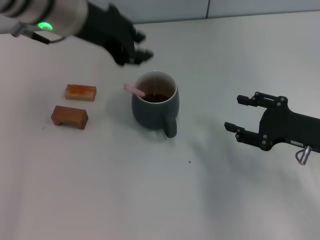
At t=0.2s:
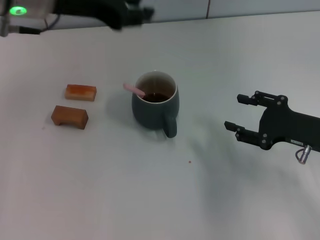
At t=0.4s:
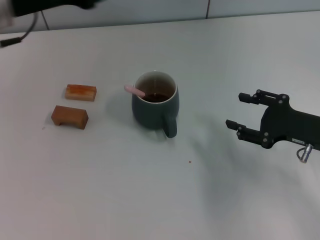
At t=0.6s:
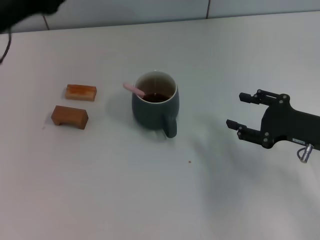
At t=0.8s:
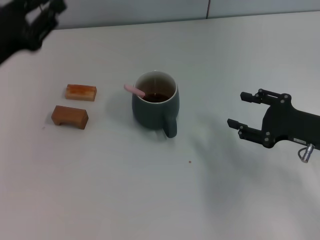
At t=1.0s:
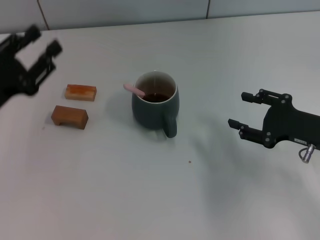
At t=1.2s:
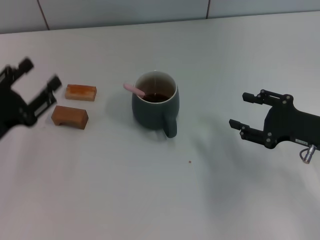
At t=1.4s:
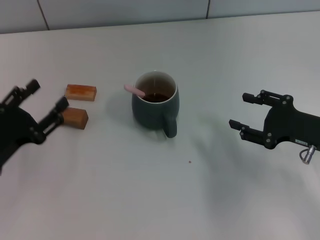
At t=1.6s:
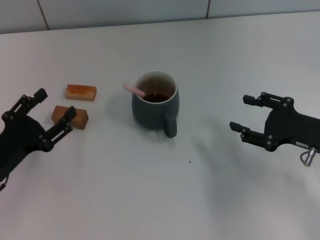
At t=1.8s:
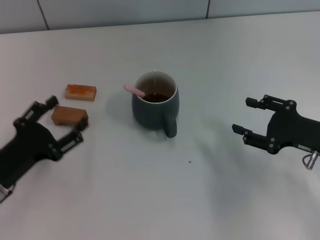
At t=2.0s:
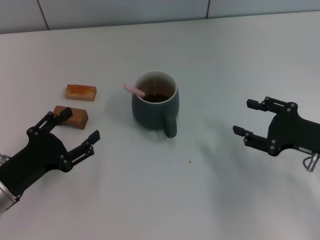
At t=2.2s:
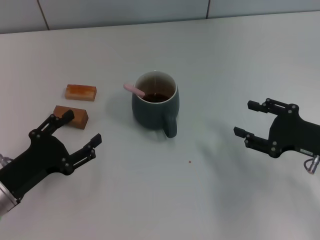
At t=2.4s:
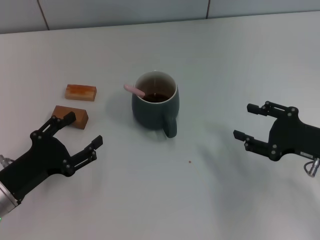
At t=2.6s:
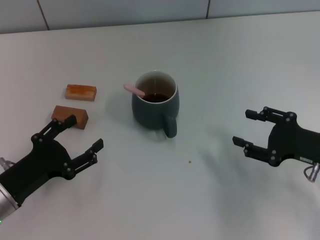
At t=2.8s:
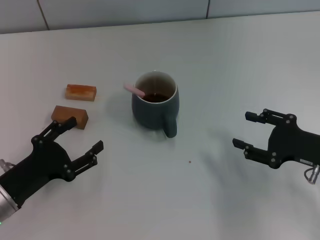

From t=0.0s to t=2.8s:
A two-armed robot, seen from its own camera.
Task of the whole recording: Move the grey cup to the center, lift the pink spoon, stir it three times in the cup, and put the spoon into the cup.
From t=0.0s to t=1.4s: The left gripper shifts about 30 cm downward, to the left and backward, and opens its fingers.
From t=1.4s to t=2.8s: There are only small adjustments of the grippers.

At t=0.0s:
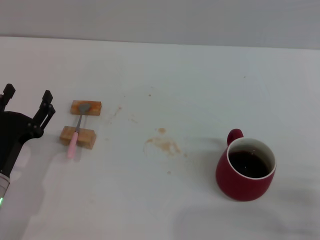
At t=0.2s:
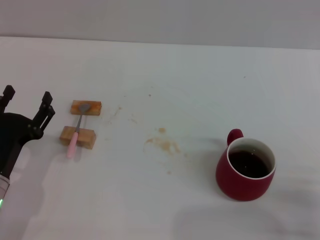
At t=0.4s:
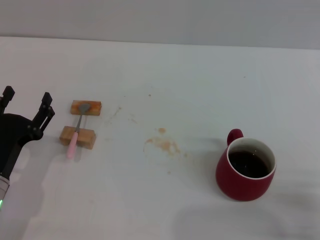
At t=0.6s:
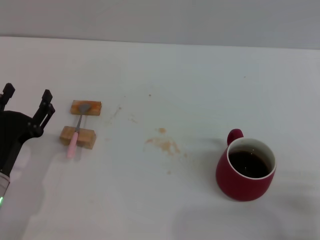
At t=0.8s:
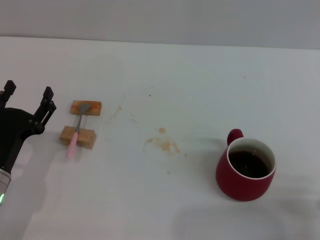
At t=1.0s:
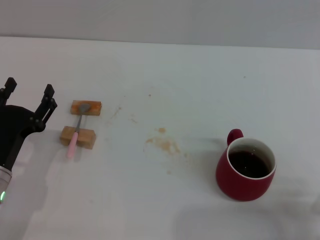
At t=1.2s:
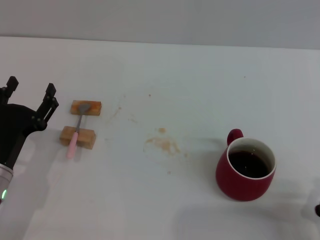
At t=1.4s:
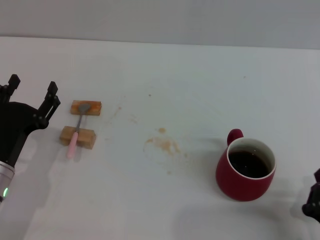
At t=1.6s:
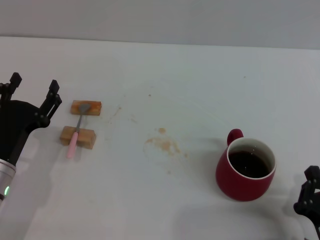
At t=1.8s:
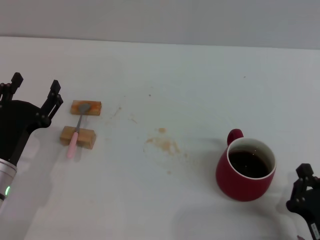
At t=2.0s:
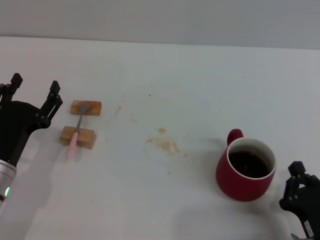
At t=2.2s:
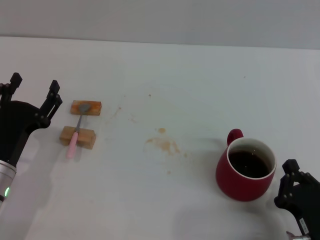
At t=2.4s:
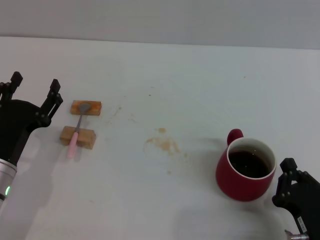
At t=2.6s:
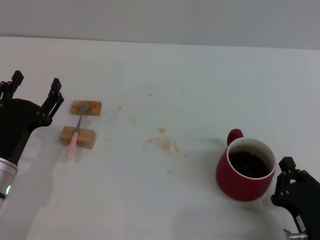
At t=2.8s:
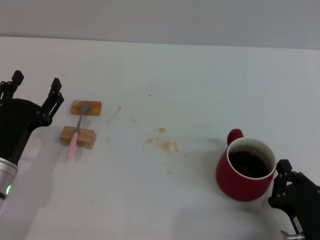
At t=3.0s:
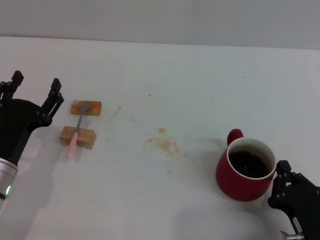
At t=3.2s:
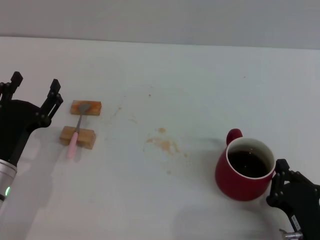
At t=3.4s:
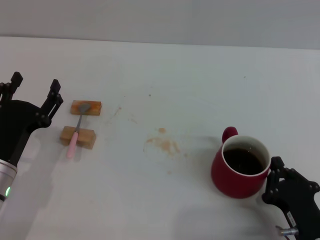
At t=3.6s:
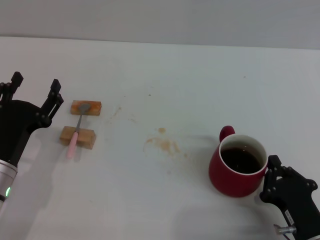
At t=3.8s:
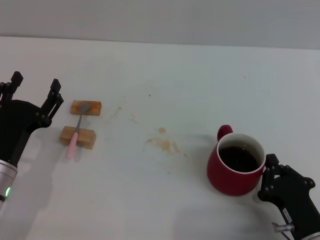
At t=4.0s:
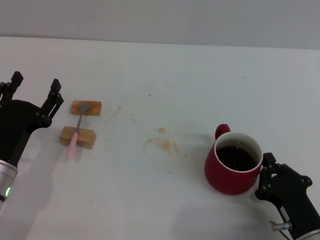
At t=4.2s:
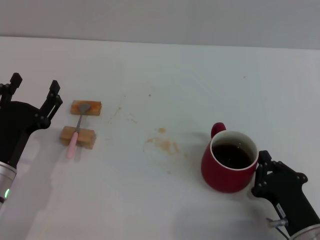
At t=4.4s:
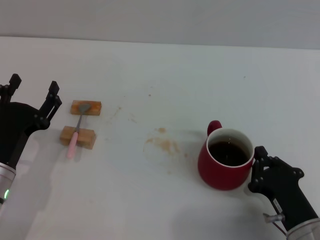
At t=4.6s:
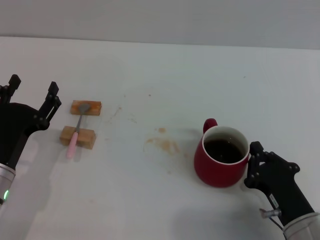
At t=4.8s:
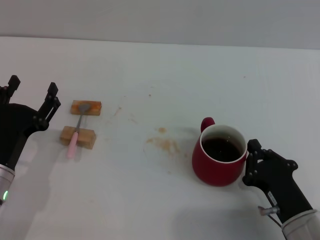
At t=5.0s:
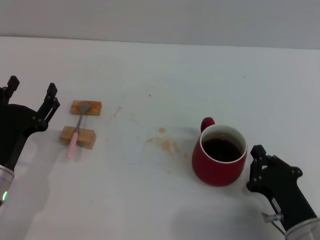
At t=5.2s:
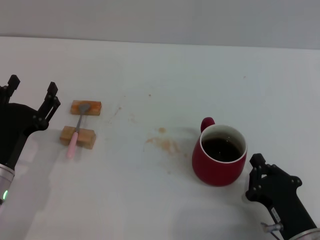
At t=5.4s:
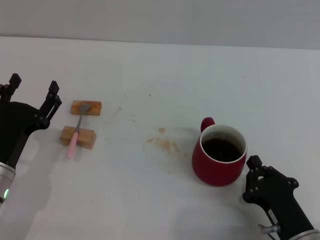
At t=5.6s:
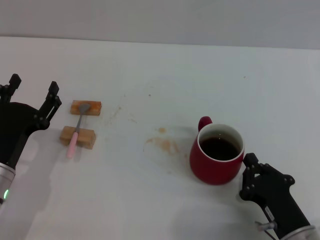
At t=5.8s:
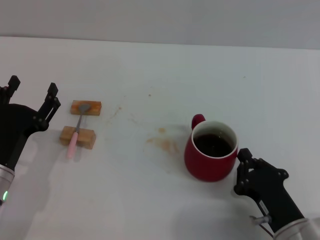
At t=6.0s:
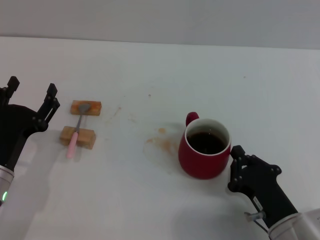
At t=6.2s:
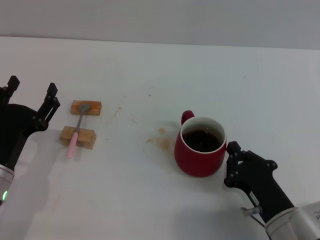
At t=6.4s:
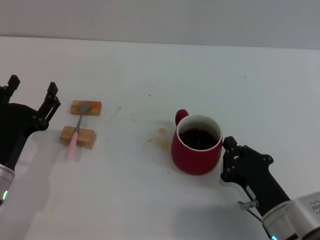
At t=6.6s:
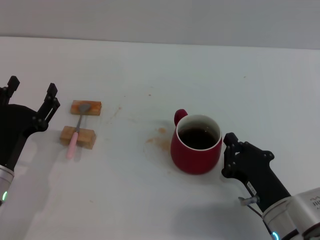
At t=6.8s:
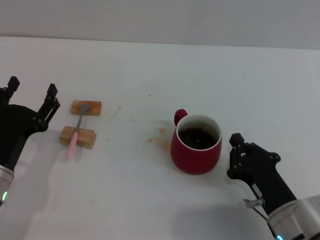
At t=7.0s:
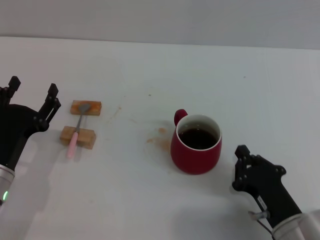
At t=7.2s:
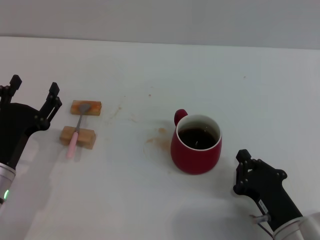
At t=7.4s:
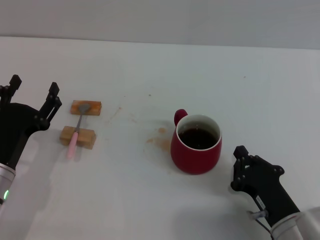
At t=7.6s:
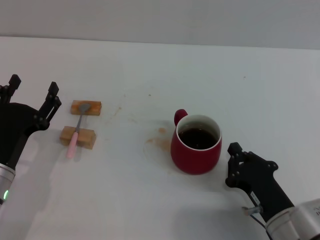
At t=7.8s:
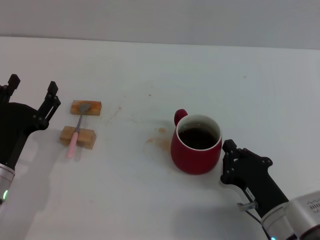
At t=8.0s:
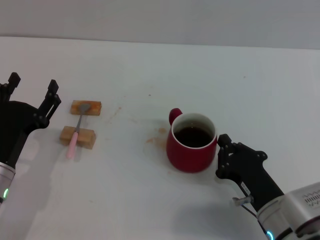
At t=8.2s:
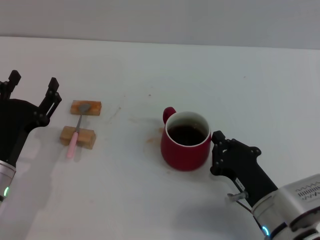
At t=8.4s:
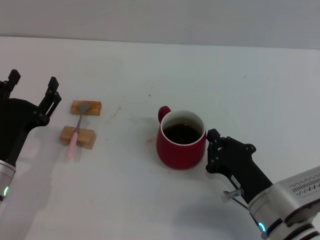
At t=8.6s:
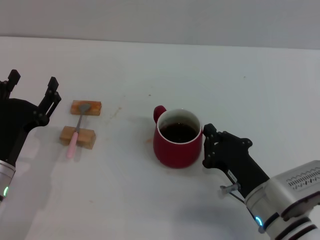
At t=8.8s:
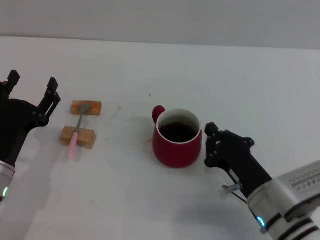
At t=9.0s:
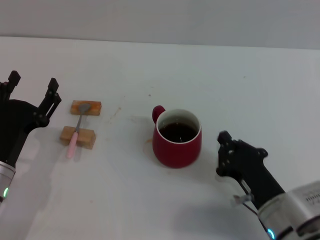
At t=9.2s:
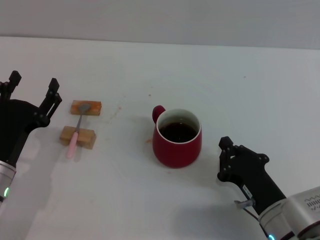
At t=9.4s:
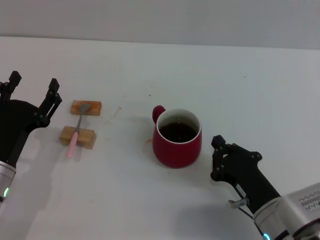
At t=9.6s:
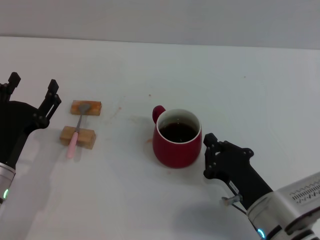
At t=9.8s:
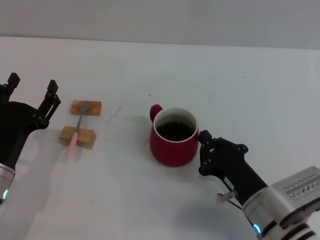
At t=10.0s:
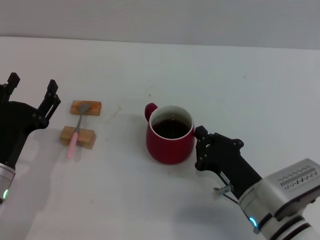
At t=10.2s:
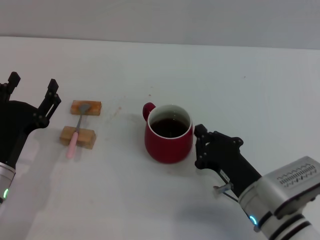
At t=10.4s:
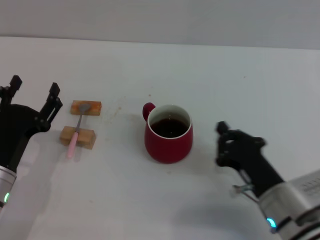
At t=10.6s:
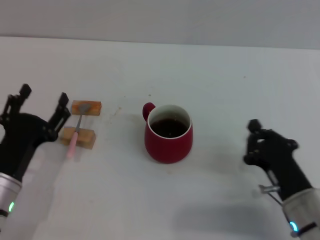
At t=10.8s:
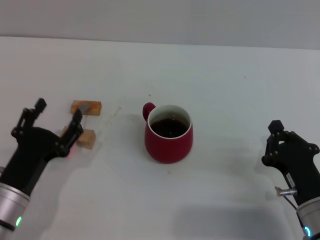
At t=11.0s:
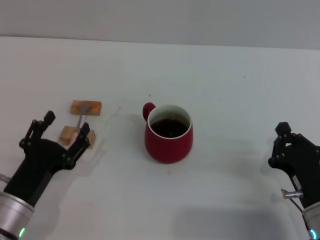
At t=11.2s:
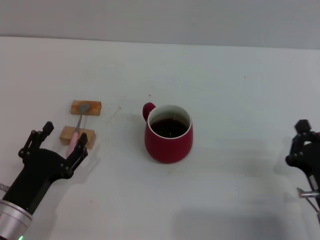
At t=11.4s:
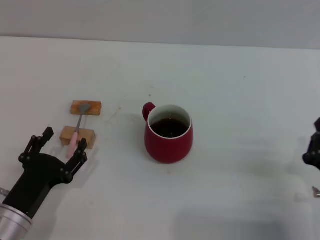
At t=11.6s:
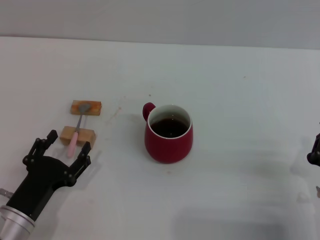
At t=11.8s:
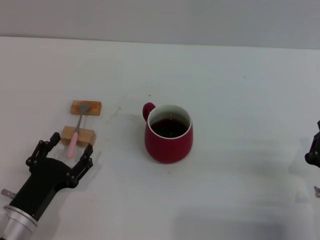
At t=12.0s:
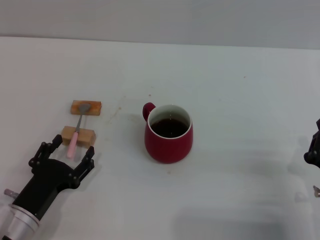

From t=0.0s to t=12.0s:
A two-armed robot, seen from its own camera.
Task of the whole recording: Move the red cup to the center, lift the pink spoon, stir it three times in the cup, and put the spoon into the cup.
Step, from t=0.0s to t=6.8s: Move the cup with coffee to the center of view with the right gripper.
From t=0.0s to t=1.6s: The right gripper ends up some 5 cm from where it was.
From t=1.6s to t=4.4s: The grippers stay close to where they were, moving slightly.
From t=4.4s to t=7.6s: The grippers move only a little.
From t=7.6s to t=10.4s: The grippers stay close to where they were, moving slightly.
From t=10.4s to t=12.0s: The right gripper shifts some 10 cm to the right. The left gripper moves roughly 5 cm.

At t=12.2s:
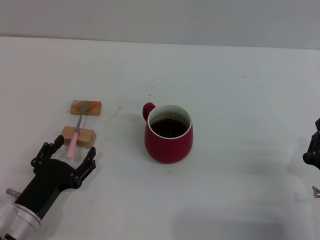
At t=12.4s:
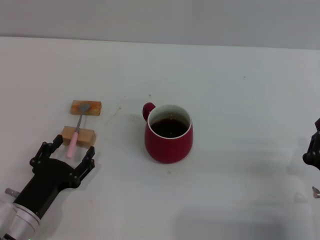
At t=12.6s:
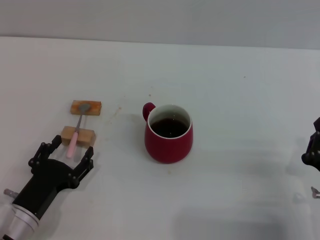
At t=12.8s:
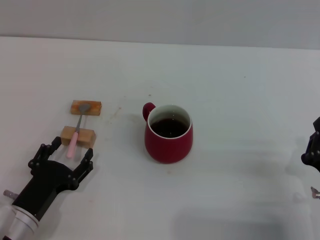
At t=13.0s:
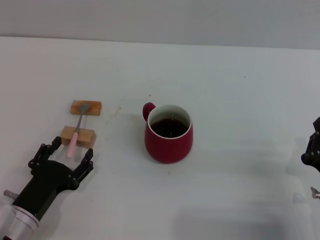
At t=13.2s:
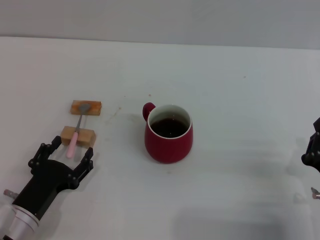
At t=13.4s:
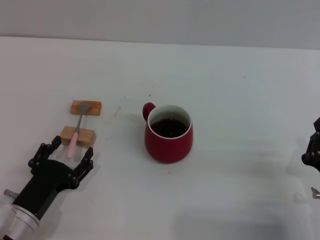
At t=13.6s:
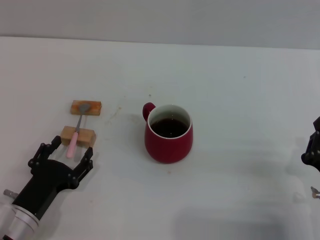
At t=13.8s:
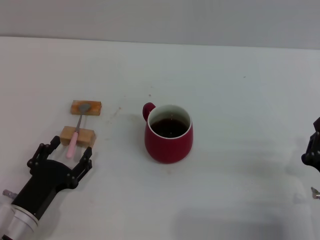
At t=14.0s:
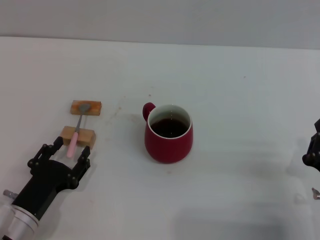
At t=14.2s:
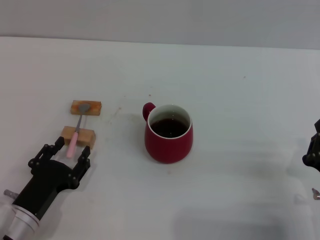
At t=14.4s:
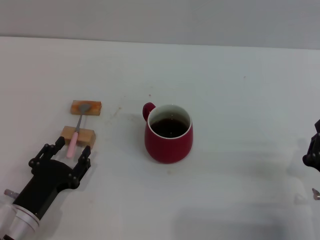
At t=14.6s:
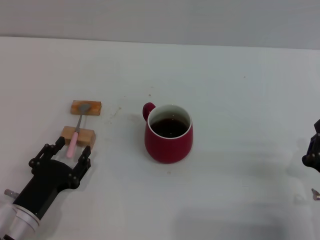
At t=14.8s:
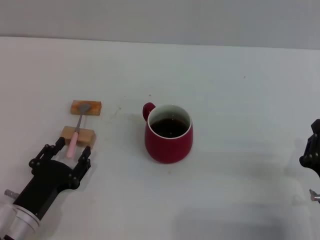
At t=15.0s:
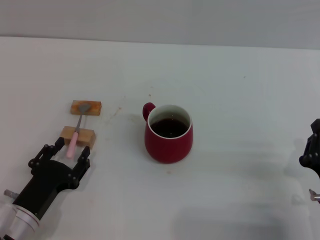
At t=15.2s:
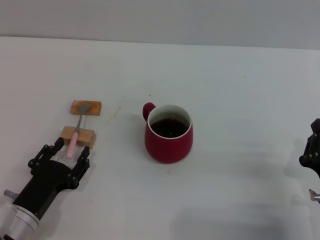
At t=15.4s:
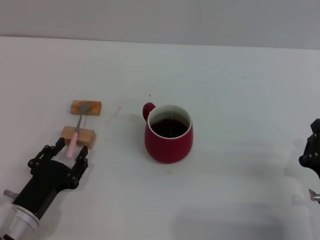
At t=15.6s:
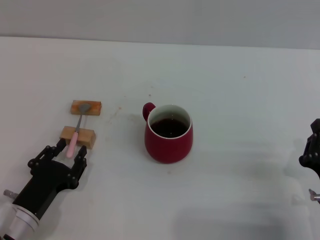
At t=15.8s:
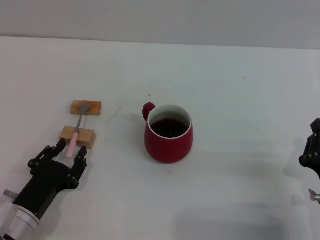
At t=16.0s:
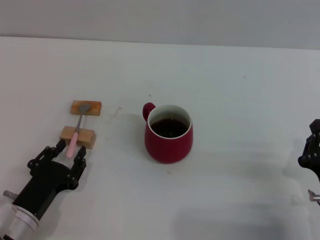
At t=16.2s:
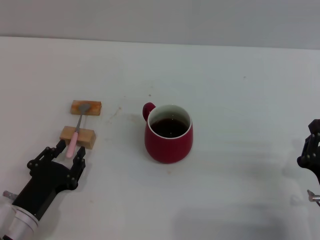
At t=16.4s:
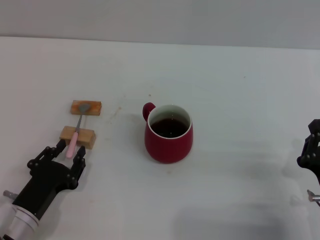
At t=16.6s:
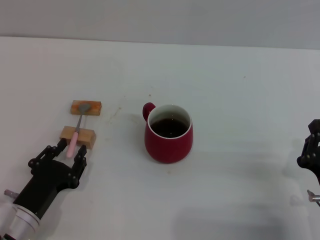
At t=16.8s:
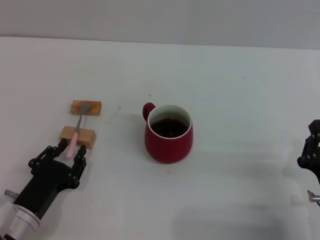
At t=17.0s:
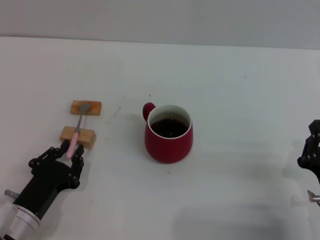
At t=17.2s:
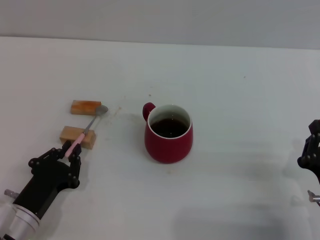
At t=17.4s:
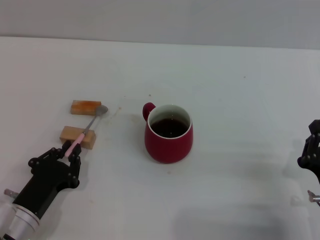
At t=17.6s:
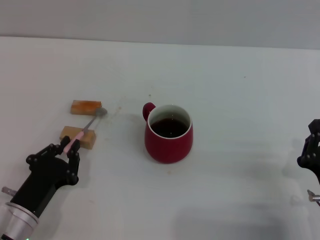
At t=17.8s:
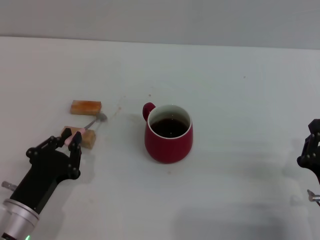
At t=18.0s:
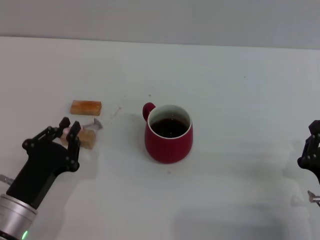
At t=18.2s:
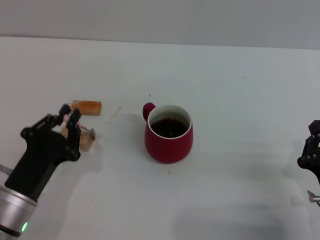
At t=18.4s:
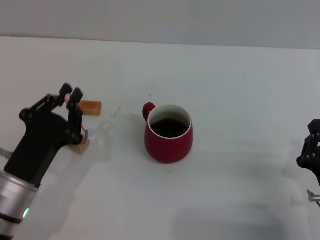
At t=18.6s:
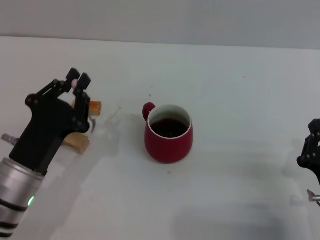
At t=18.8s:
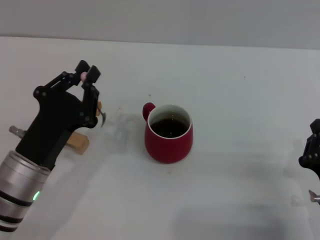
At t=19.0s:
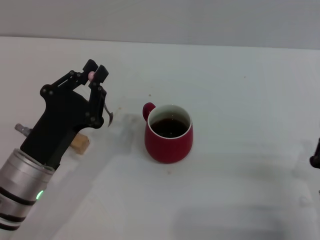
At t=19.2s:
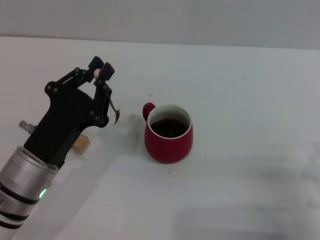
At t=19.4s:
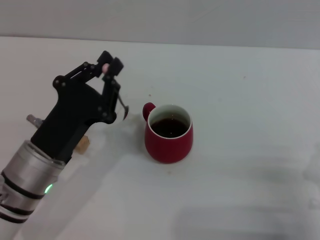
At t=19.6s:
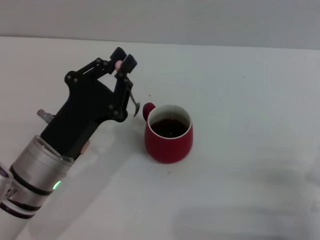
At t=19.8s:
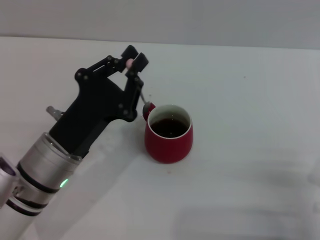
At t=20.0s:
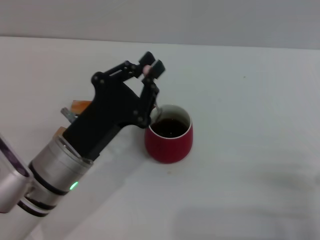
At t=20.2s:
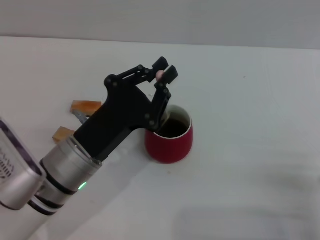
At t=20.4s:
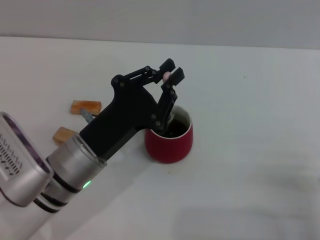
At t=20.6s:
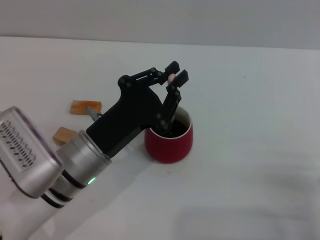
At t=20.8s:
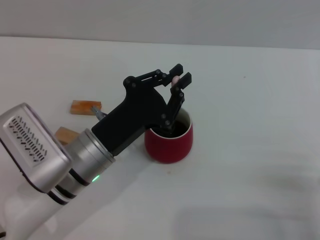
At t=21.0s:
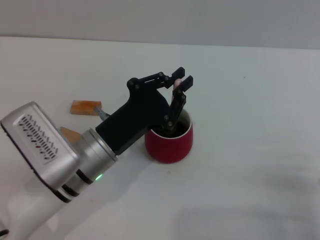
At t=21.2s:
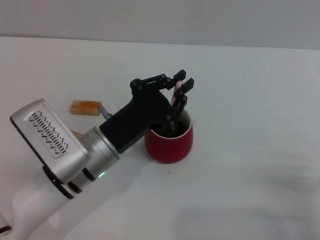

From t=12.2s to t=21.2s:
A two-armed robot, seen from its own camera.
Task of the whole recording: Move the red cup to the center, lift the pink spoon, stir it three times in the cup, and put the spoon into the cup.
Step, from t=12.2s to t=18.8s: Pick up the spoon with the left gripper.
From t=12.2s to t=16.6s: Both grippers stay put.
From t=16.6s to t=18.2s: The left gripper closes.
From t=18.2s to t=19.8s: The left gripper moves to the right and upward, roughly 10 cm.
From t=19.8s to t=21.2s: There are only small adjustments of the grippers.
